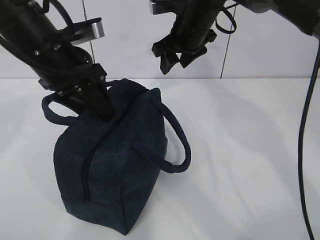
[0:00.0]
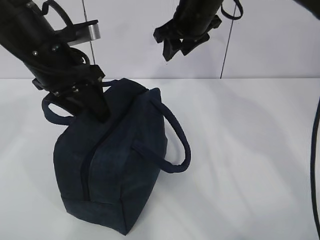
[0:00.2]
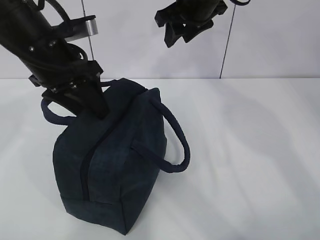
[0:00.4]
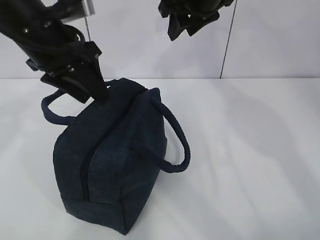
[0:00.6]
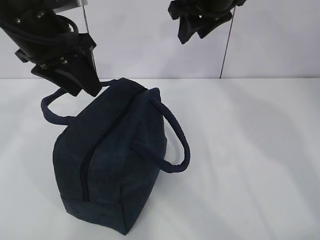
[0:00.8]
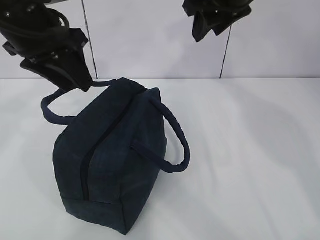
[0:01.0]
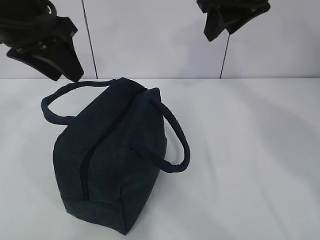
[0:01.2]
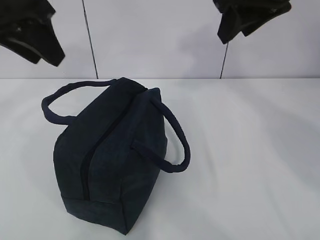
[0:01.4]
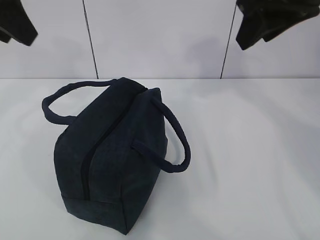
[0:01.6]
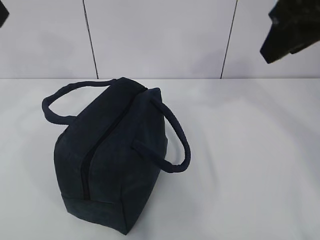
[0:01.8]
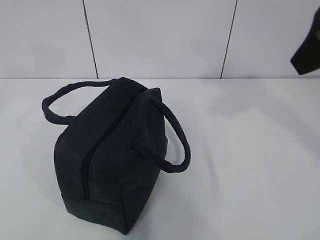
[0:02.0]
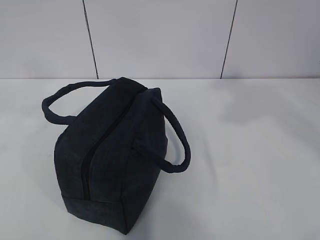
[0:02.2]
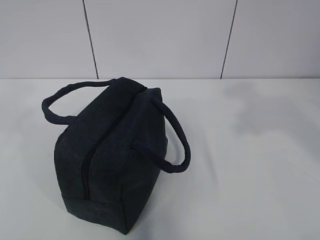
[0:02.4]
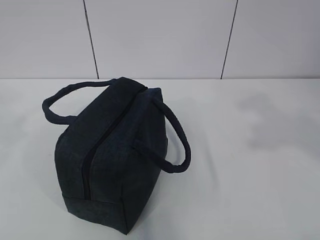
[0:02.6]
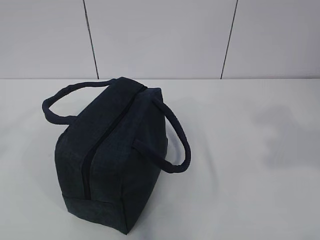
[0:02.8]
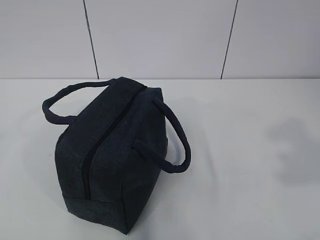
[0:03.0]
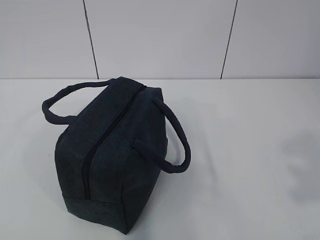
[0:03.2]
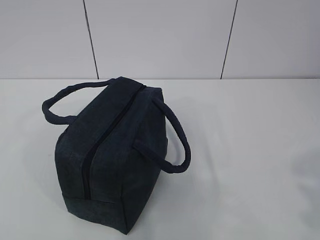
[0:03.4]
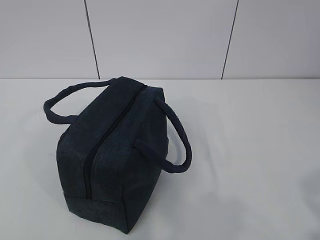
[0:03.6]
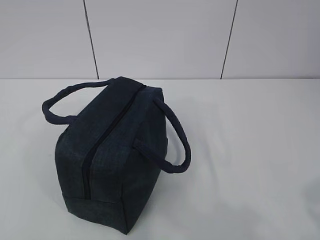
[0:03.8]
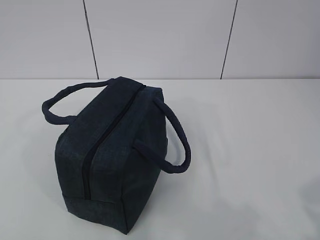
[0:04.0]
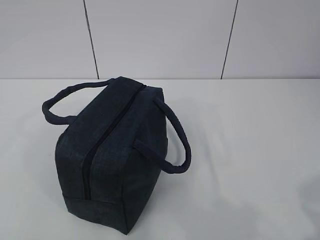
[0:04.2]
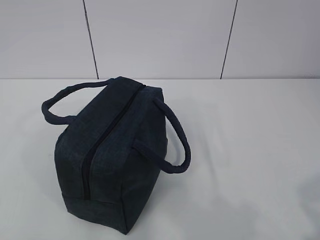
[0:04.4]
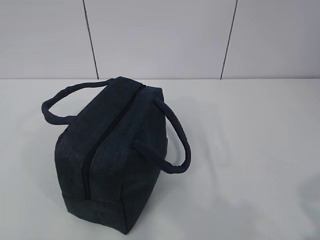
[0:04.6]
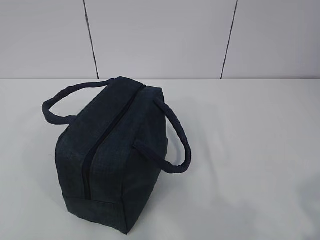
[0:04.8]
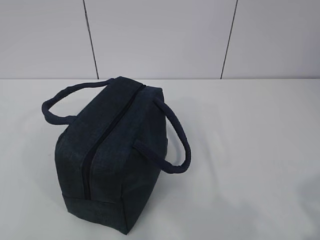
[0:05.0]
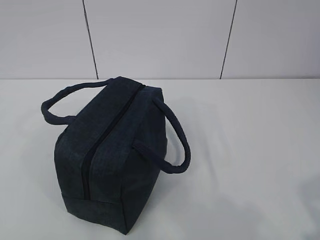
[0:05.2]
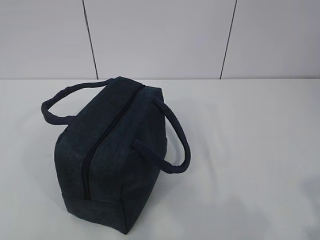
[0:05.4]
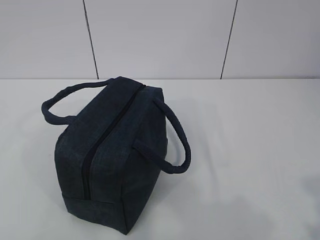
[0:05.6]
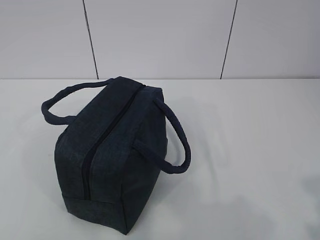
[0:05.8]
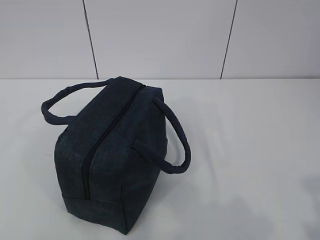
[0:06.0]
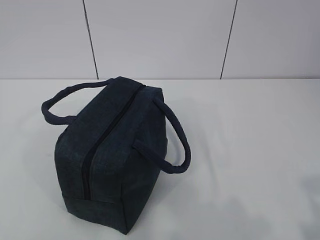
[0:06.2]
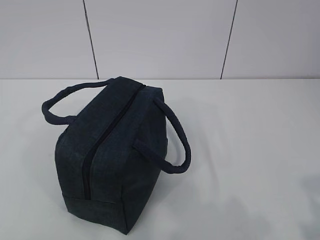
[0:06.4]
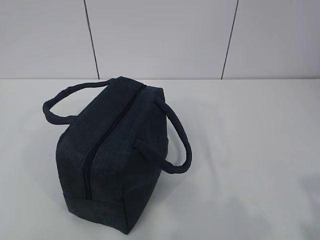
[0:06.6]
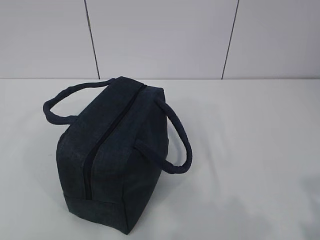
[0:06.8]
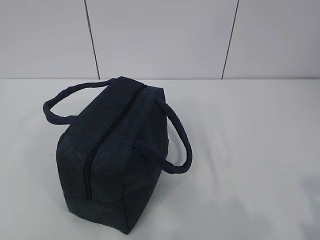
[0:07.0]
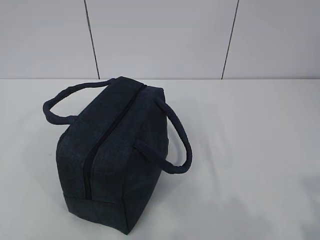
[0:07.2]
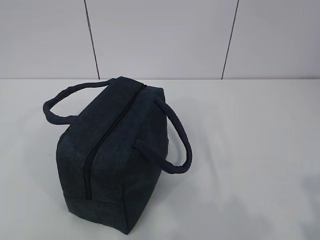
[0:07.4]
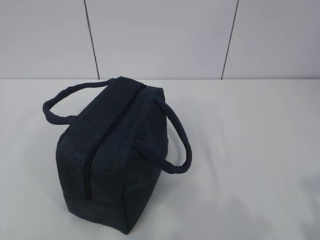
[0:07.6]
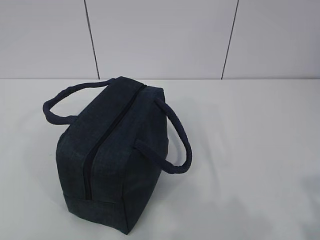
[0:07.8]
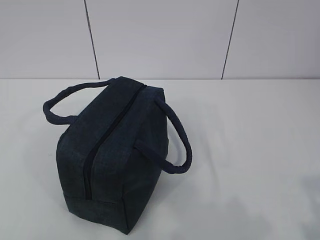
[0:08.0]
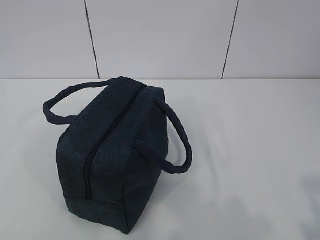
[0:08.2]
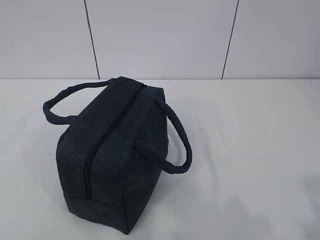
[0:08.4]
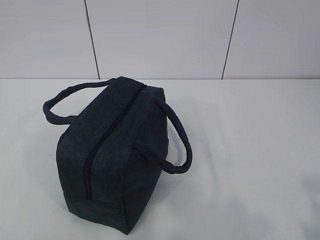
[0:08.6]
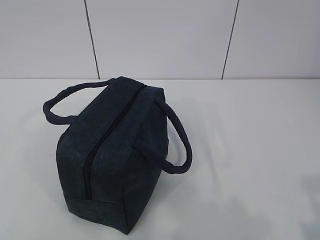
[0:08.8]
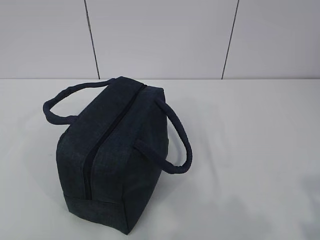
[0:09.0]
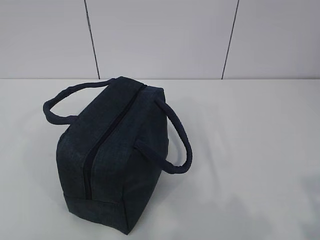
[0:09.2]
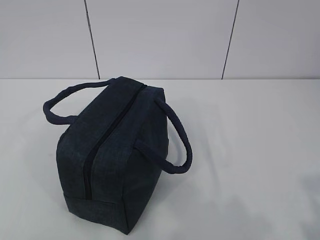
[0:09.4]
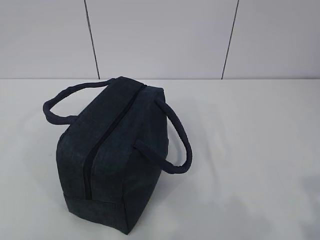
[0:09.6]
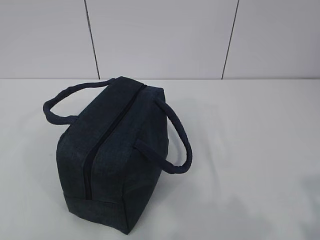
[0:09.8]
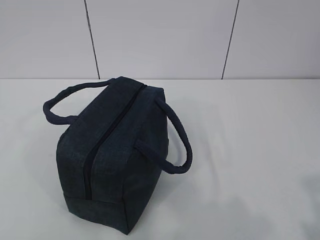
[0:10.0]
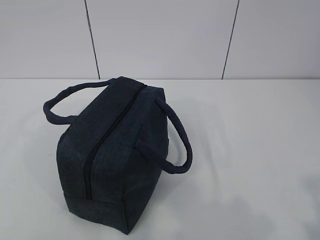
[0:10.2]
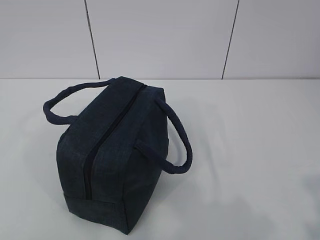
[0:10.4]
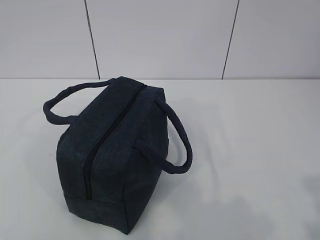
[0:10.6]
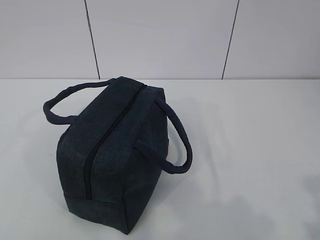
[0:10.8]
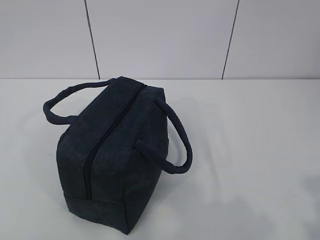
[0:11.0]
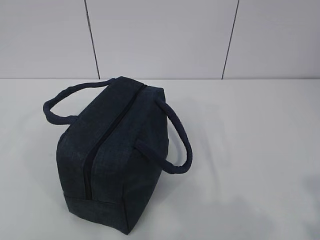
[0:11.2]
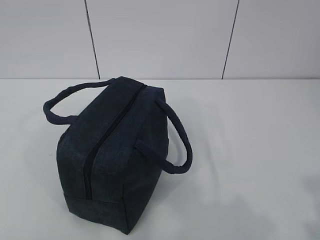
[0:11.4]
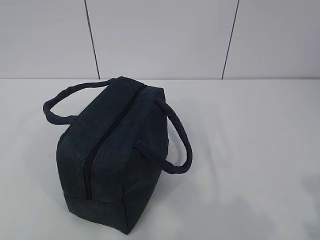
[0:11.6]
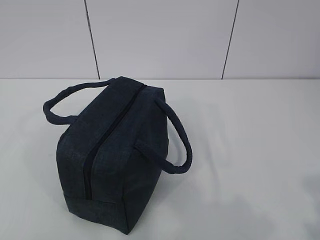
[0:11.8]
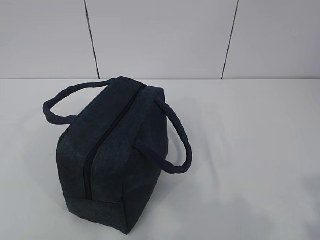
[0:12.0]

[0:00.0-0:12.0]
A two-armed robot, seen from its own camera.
0:00.0 to 0:01.6: The right gripper heads backward, upward and to the right, covering some 25 cm. The left gripper heads upward, to the left and backward, covering about 15 cm.
0:01.6 to 0:03.0: The left gripper is displaced backward and to the left by roughly 30 cm, while the right gripper is displaced backward and to the right by about 30 cm.
0:03.0 to 0:04.4: The two grippers go approximately 15 cm downward.
0:06.0 to 0:12.0: Both grippers stay put.

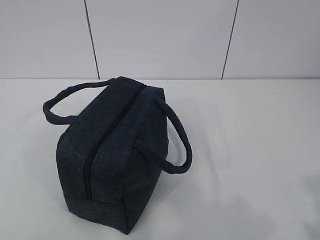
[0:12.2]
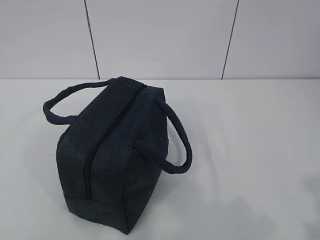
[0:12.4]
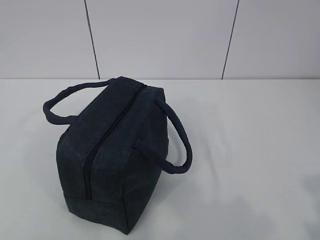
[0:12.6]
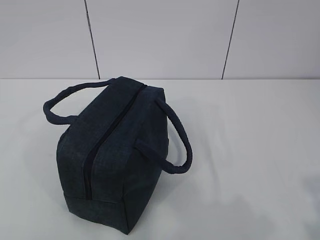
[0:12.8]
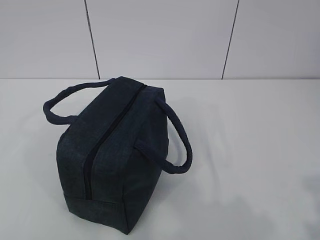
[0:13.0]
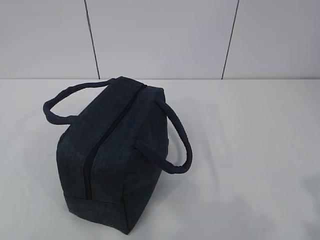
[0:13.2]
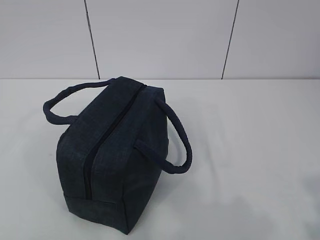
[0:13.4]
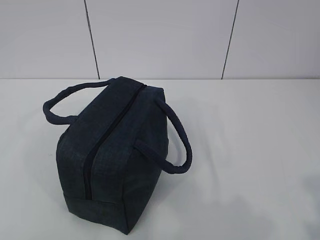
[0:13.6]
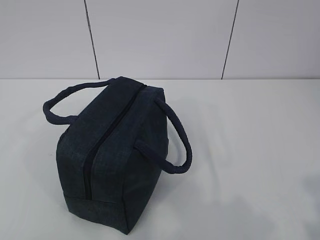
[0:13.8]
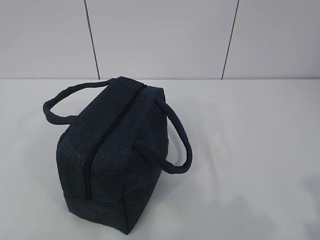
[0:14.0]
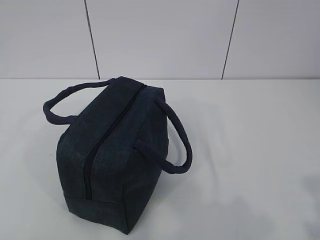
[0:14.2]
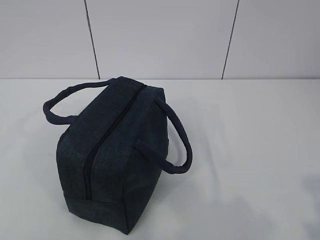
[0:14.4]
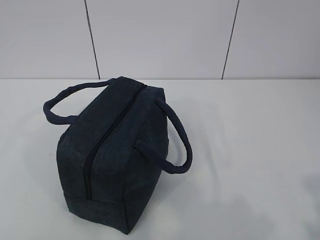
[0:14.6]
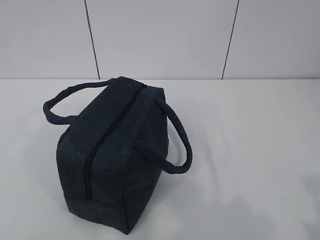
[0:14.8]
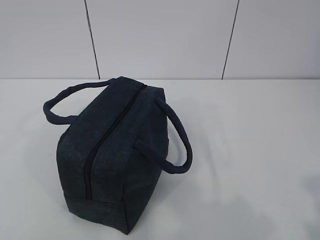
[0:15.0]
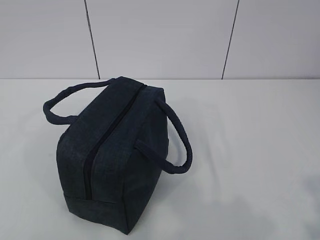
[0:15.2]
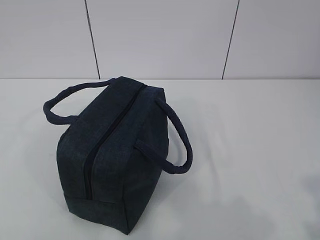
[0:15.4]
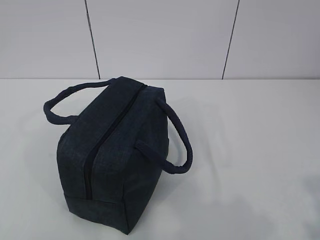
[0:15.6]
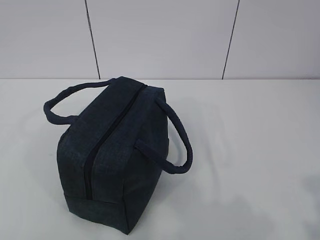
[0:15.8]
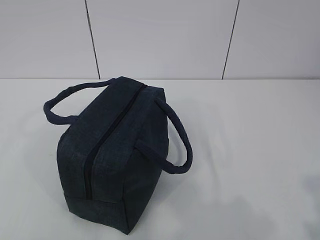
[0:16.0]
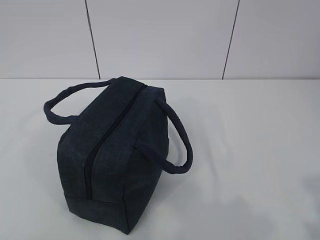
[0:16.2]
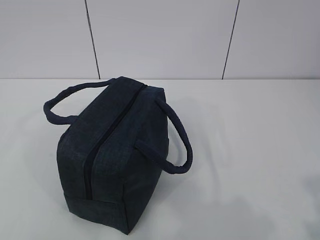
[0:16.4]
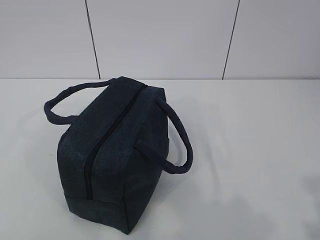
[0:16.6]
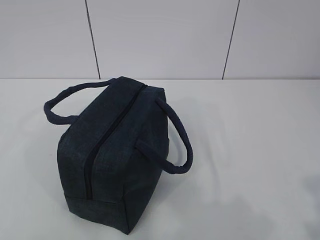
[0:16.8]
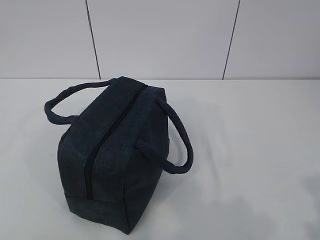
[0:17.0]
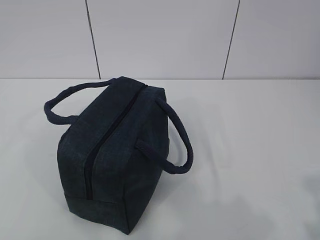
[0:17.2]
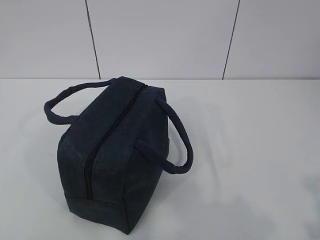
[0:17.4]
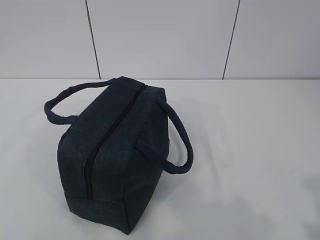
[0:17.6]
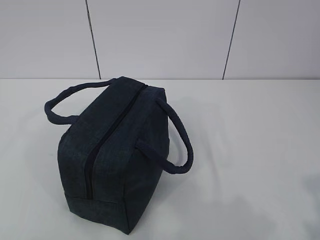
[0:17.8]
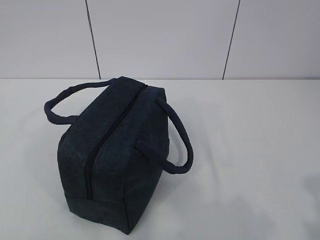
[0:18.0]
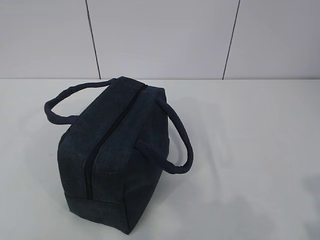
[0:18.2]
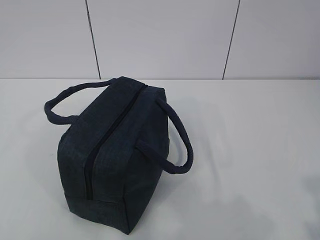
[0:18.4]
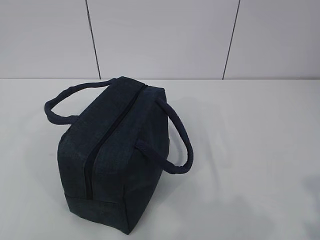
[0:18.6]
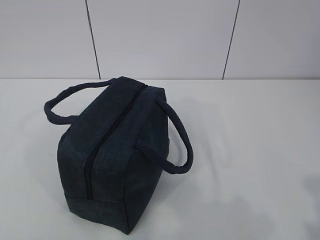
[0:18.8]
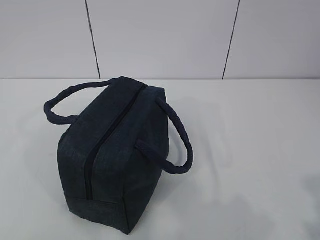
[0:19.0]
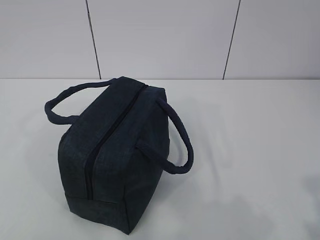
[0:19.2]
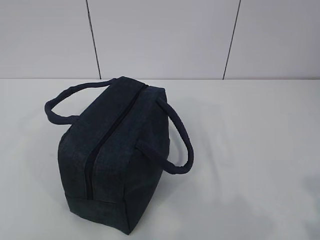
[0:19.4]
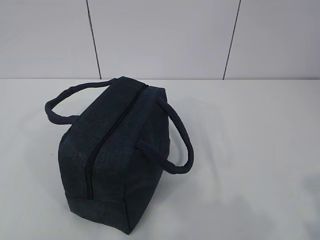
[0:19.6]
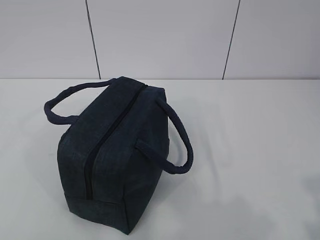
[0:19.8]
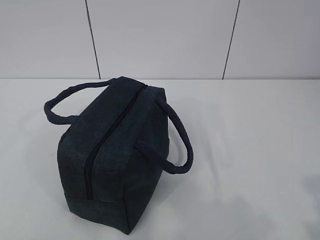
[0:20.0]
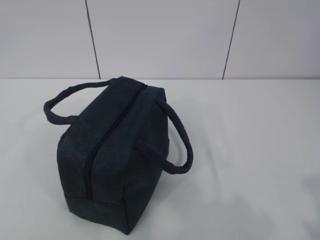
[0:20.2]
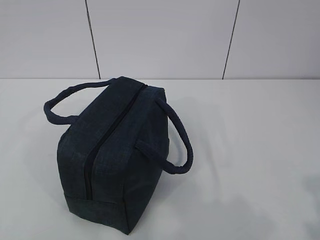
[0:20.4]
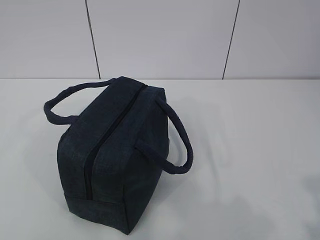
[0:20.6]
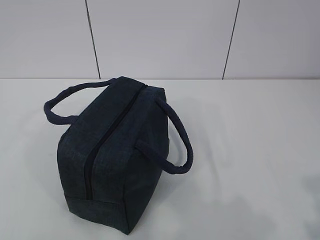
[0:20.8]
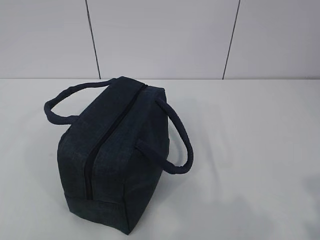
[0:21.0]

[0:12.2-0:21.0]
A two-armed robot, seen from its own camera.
0:12.2 to 0:21.0: Both grippers stay about where they are.

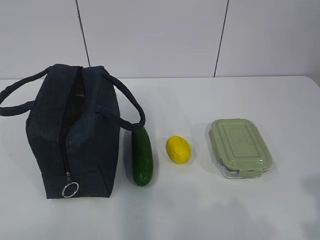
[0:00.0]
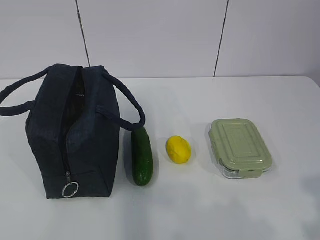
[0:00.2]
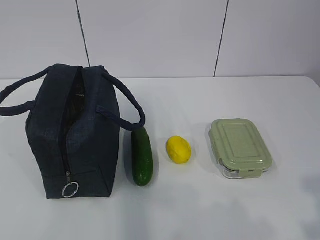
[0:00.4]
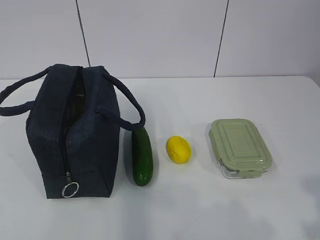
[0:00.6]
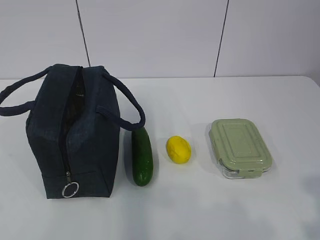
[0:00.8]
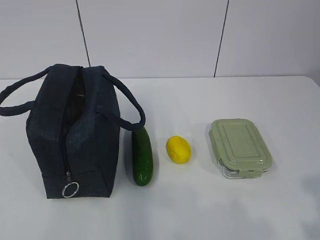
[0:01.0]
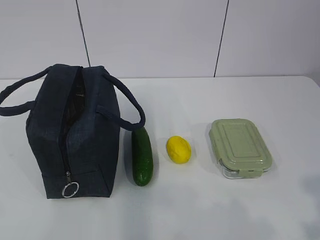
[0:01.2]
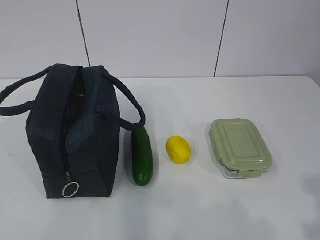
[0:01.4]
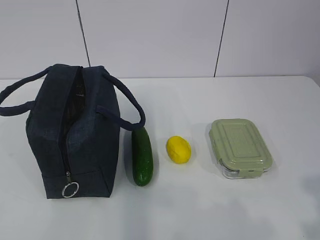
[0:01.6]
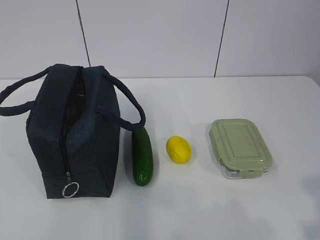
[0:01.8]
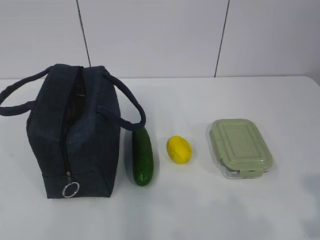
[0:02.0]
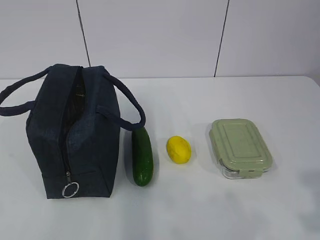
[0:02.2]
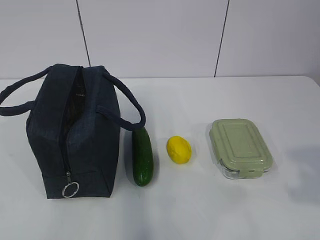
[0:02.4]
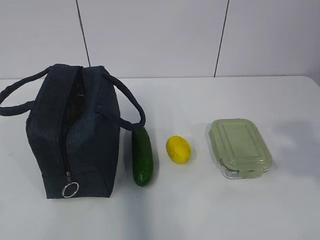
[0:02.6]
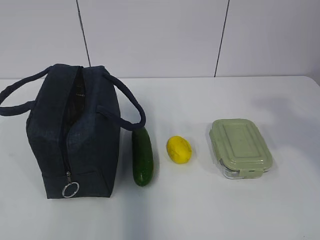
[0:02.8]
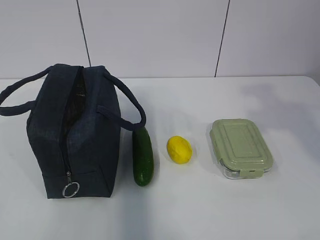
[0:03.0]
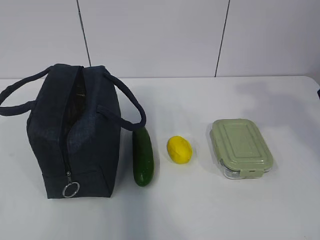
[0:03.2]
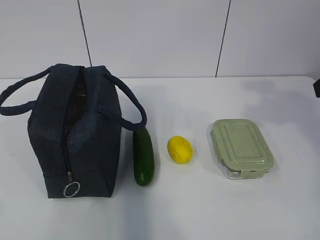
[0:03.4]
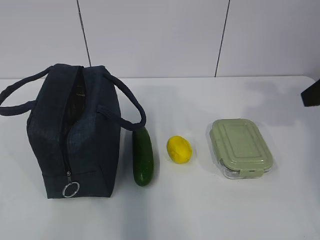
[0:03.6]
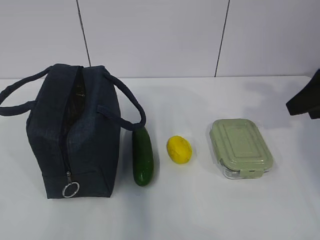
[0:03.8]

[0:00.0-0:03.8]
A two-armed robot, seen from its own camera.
0:02.6 to 0:03.8: The right gripper is displaced forward by some 20 cm.
